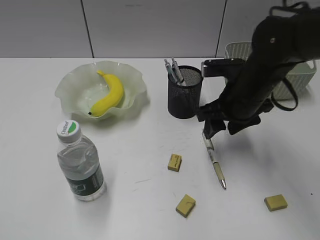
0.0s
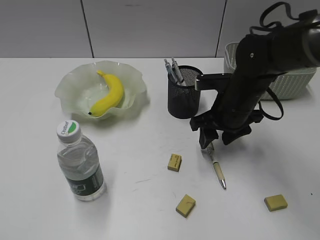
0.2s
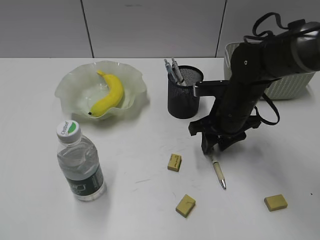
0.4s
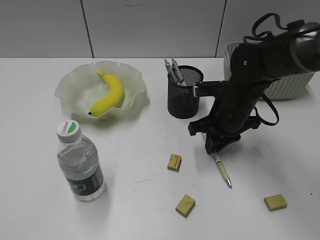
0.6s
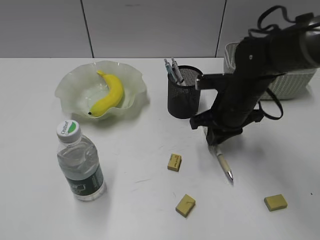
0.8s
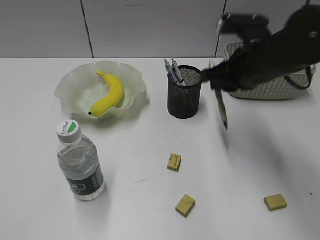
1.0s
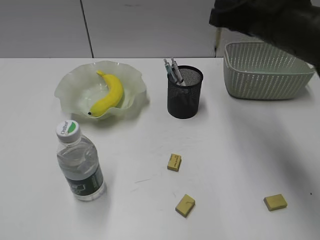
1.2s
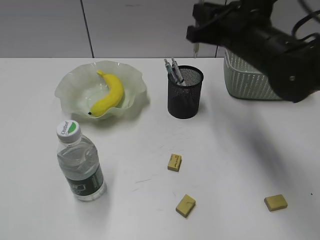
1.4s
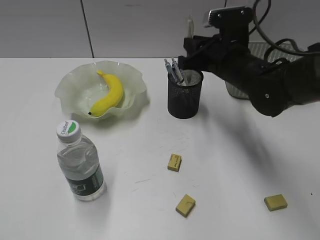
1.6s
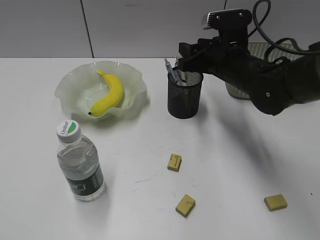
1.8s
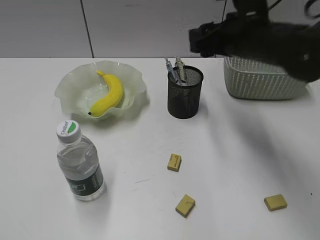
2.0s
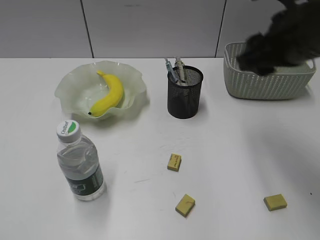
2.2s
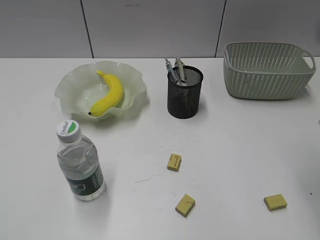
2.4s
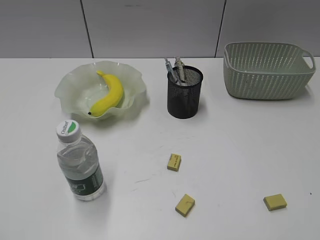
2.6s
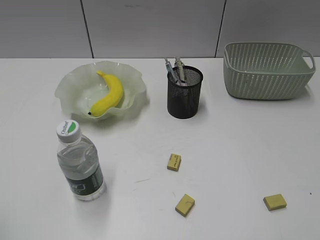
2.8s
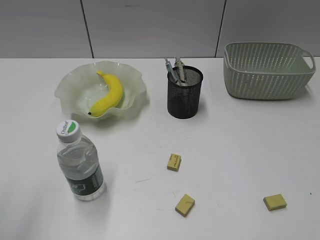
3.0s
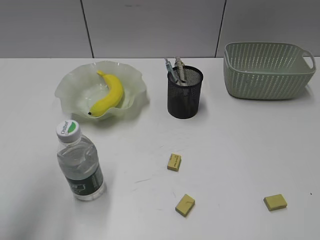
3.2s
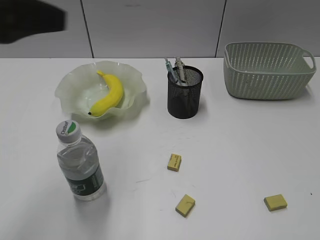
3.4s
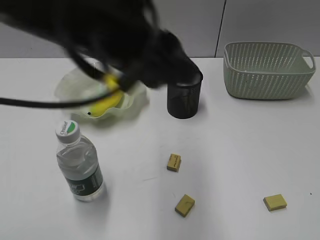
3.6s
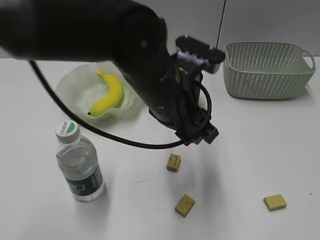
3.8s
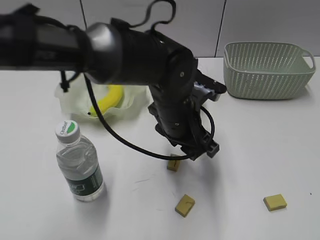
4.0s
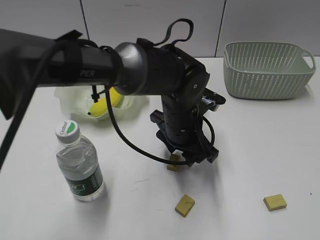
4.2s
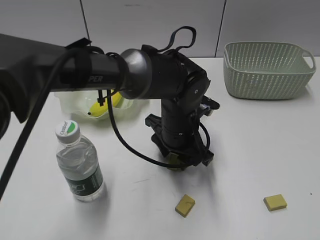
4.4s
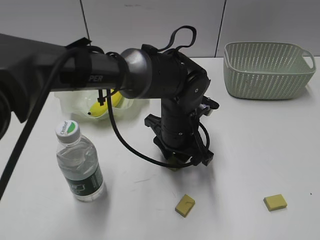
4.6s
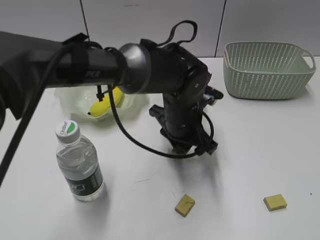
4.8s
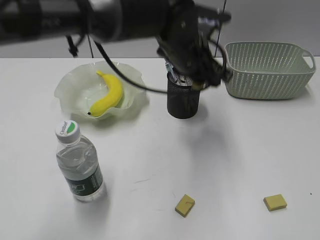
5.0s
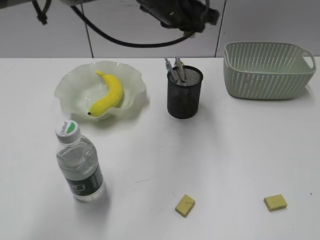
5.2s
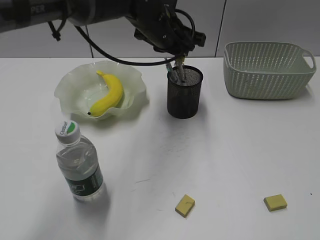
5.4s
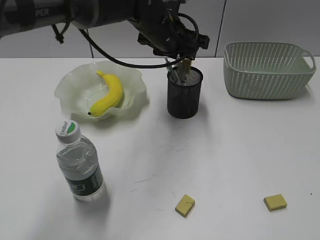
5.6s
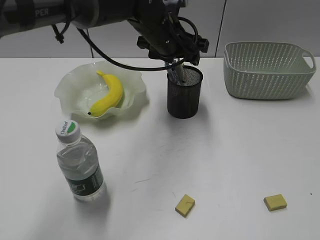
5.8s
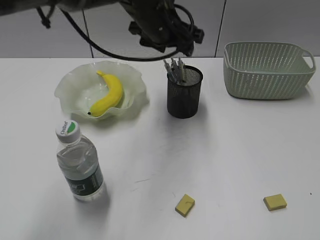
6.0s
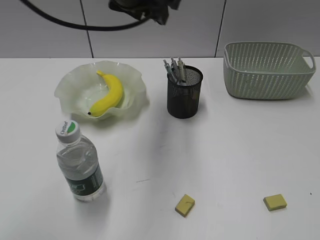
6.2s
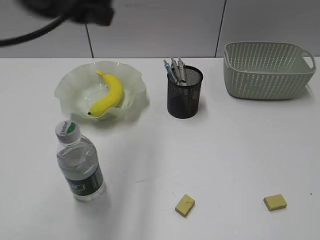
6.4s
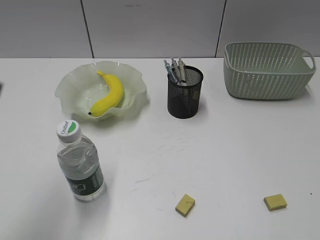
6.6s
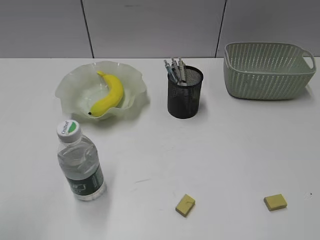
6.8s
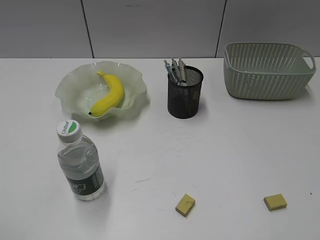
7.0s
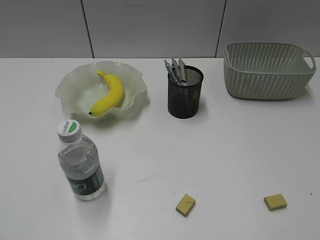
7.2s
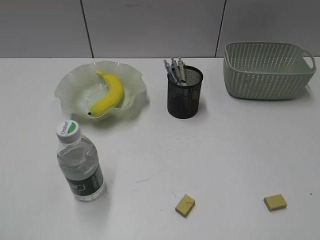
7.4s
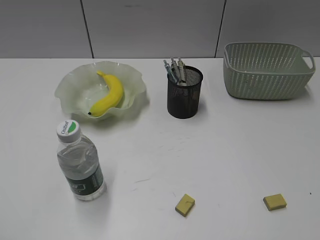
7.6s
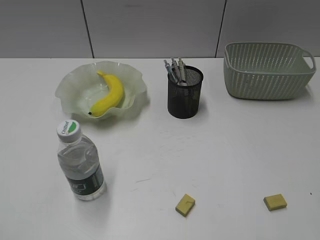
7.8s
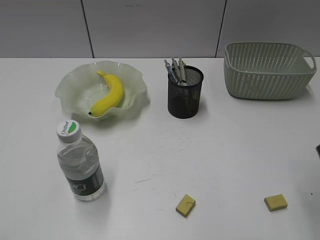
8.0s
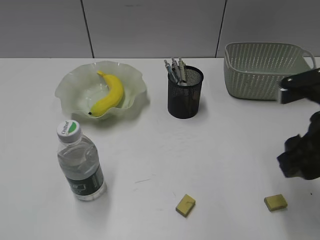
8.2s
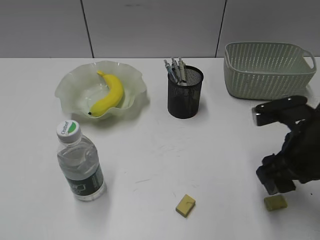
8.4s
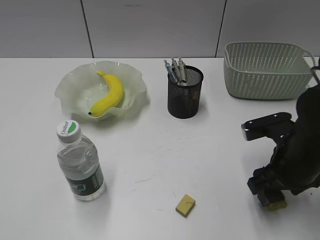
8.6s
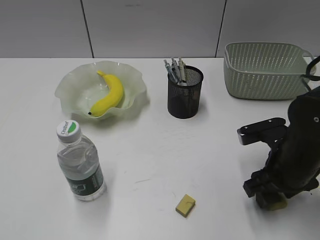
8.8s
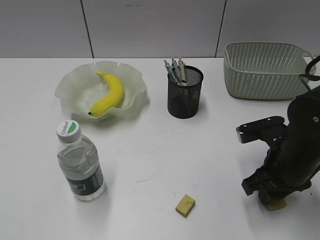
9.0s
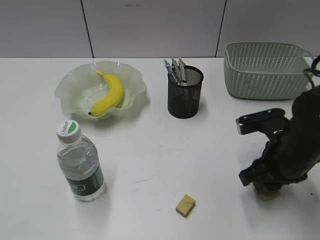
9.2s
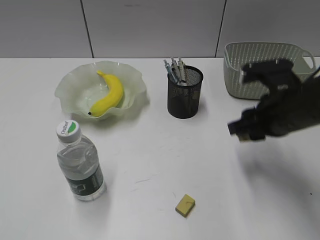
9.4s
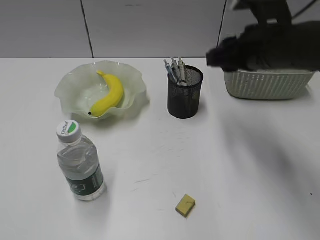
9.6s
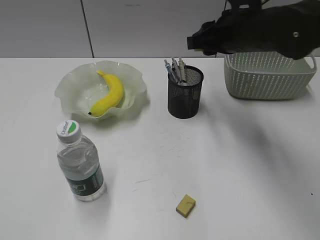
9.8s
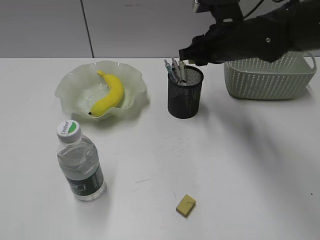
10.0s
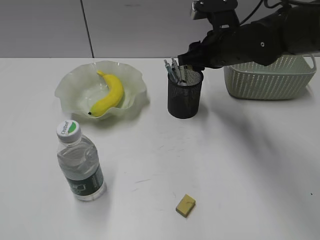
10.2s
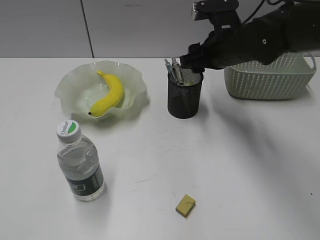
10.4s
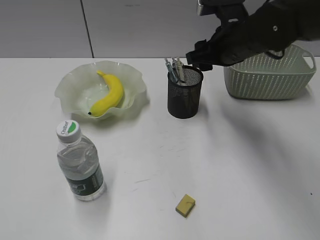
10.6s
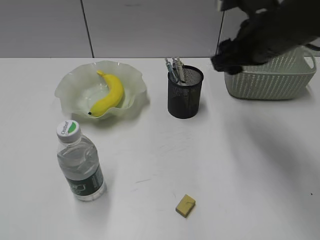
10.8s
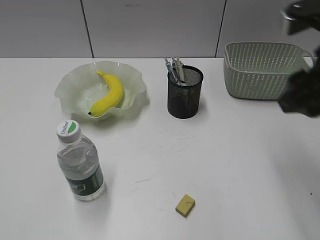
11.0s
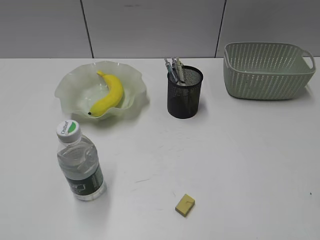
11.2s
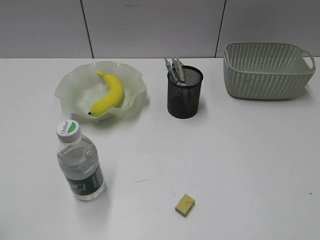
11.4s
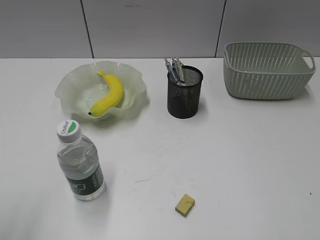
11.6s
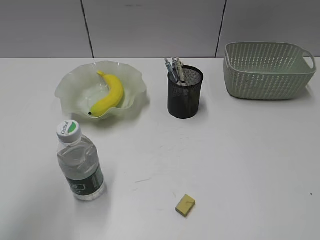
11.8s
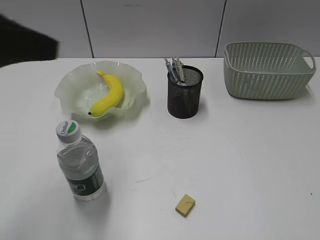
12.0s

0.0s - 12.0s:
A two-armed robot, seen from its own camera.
Step, 0.8s - 1.8s: Place the yellow pen in pen holder with right gripper.
Step, 2.0s - 4.6s: Grasp the eraser with left gripper.
Step, 4.8s - 5.8s: Place the eraser in pen holder with left gripper.
Step, 6.0s - 9.0s: Grasp the eraser with right gripper.
Step, 9.2s - 10.4s: Place the eraser in pen holder with right gripper.
0.0s - 1.6s: The right gripper moves up and down over approximately 15 cm, changing direction 2 times, and closes its fingers.
1.6s - 3.0s: The right gripper heads backward and to the right, covering about 40 cm, and opens, while the left gripper goes some 5 cm forward.
3.0s - 4.4s: The left gripper travels to the right, forward and downward by roughly 50 cm.
4.4s - 6.0s: The left gripper goes roughly 15 cm upward and forward, and closes, then reopens.
6.0s - 7.6s: The left gripper moves backward and to the left, some 50 cm, and closes.
7.6s - 9.0s: The right gripper travels forward, downward and to the left by about 30 cm, and opens, then closes once more.
9.0s - 10.4s: The right gripper goes some 20 cm forward, upward and to the left, and opens.
10.4s - 12.0s: The right gripper heads backward and to the right, covering some 40 cm, while the left gripper shifts some 25 cm forward and to the right.

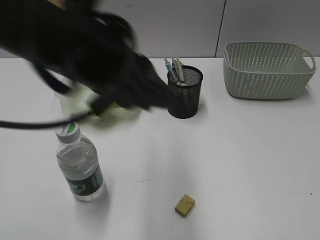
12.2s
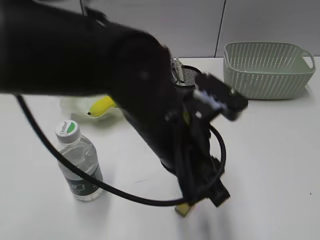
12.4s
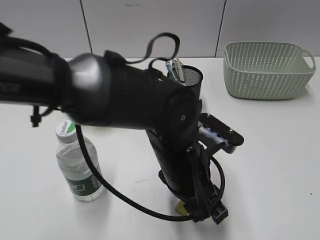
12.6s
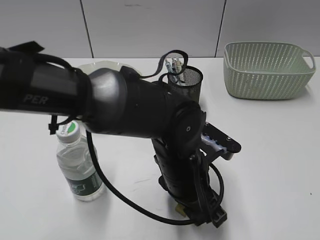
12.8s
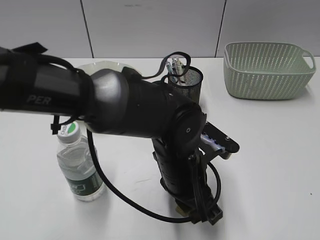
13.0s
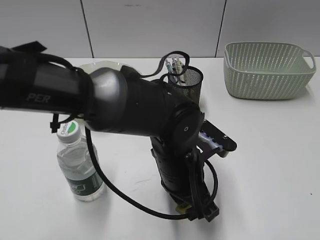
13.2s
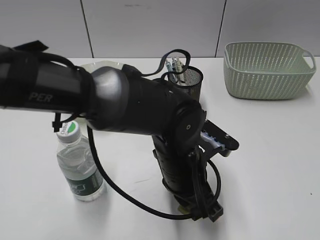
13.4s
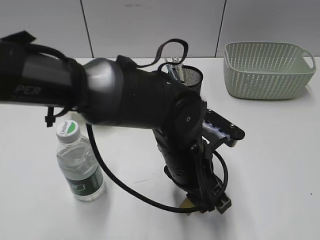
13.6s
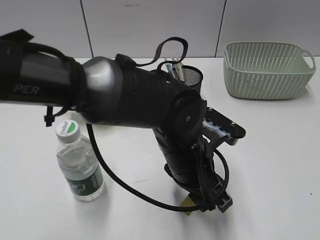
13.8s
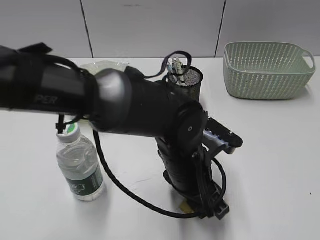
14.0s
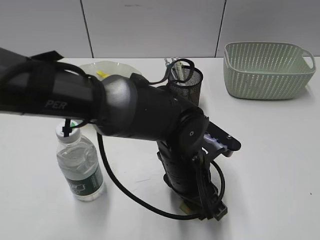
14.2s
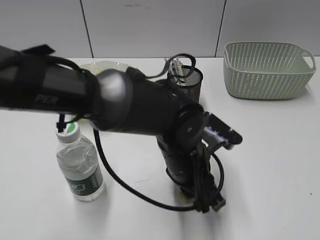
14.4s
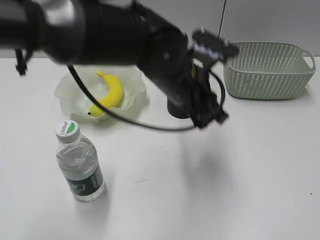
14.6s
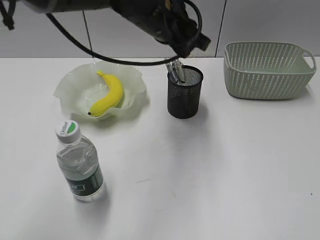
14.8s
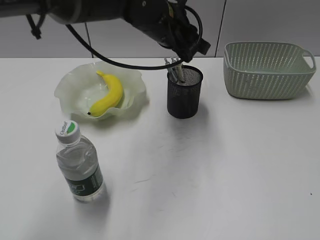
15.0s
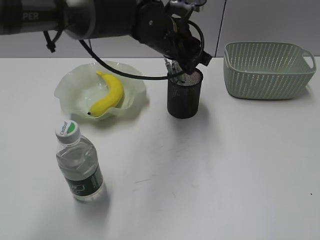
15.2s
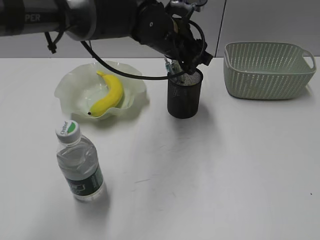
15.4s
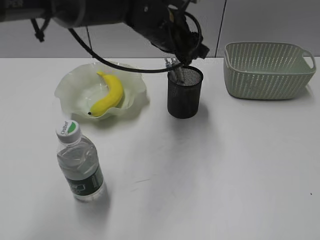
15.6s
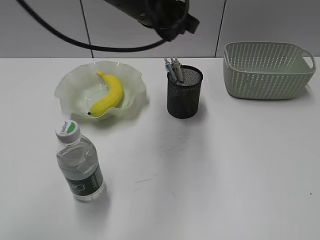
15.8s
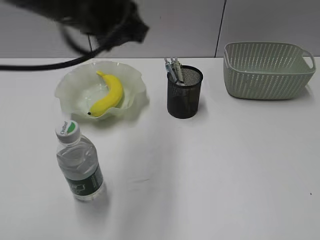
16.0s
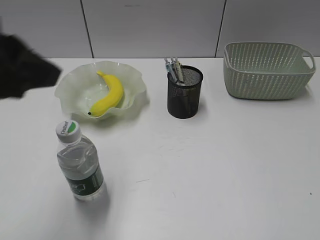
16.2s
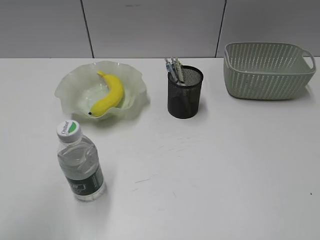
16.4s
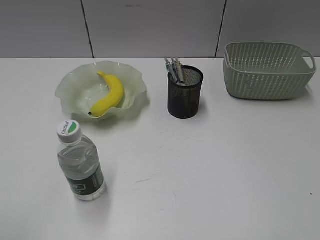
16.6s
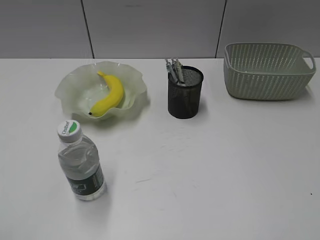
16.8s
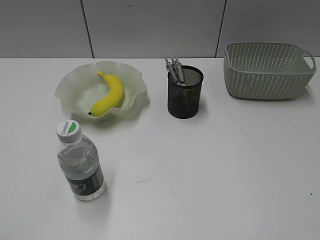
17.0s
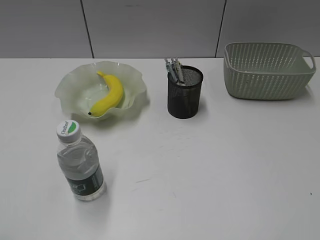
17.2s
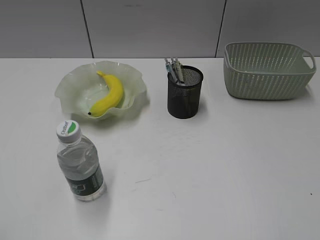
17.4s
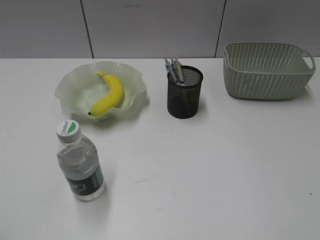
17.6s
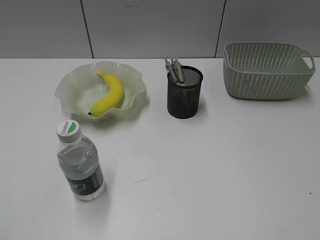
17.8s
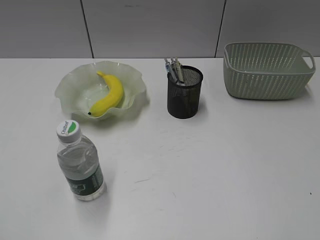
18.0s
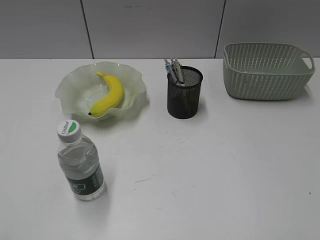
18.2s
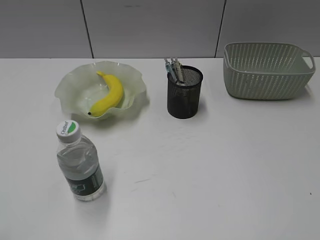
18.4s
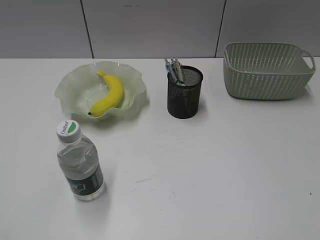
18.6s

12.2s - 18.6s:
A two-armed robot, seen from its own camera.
Step, 12.2s - 14.2s: Grasp the eraser with left gripper.
Step, 14.4s - 15.4s: Place the eraser in pen holder with left gripper.
12.2s - 13.8s: The left gripper shifts roughly 20 cm downward and to the right, and opens.
13.8s - 15.4s: The left gripper moves forward and upward, roughly 20 cm, and closes and opens again.
15.4s - 17.0s: The left gripper goes roughly 50 cm backward and to the left, and closes its fingers.
